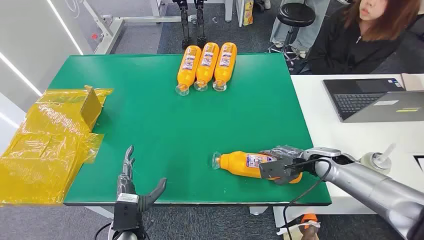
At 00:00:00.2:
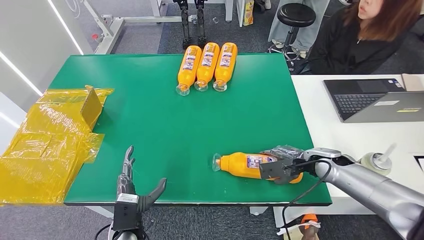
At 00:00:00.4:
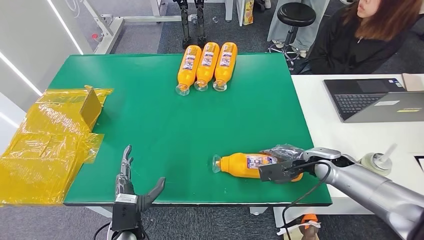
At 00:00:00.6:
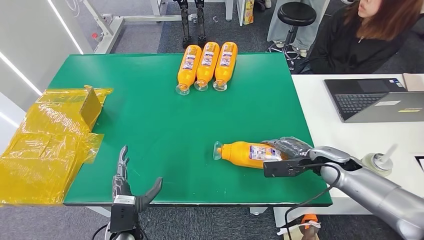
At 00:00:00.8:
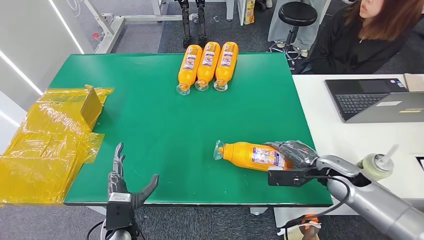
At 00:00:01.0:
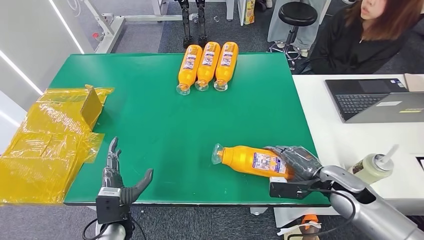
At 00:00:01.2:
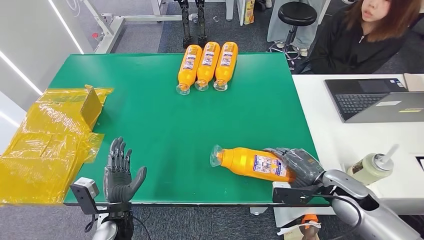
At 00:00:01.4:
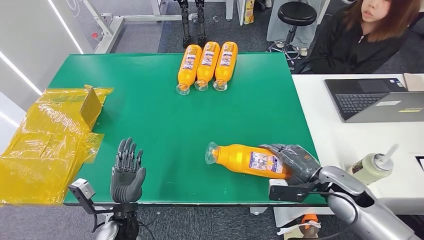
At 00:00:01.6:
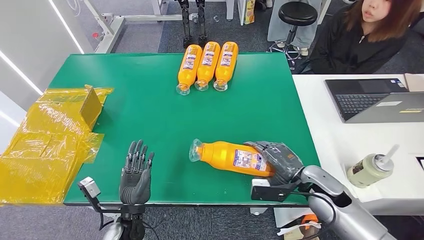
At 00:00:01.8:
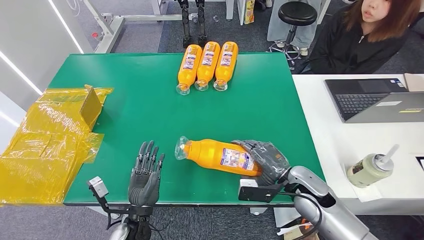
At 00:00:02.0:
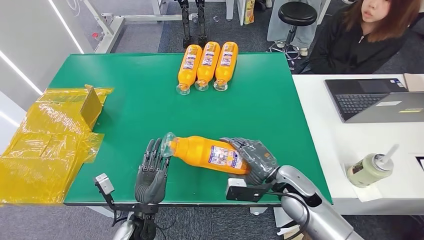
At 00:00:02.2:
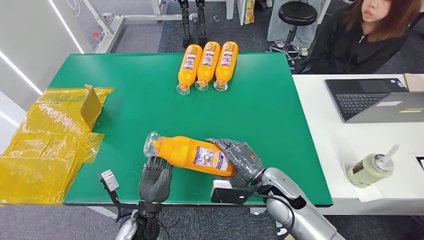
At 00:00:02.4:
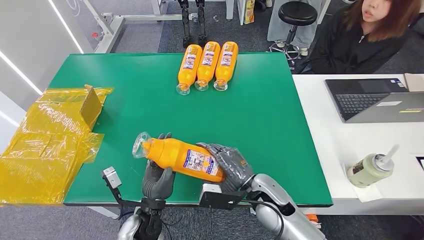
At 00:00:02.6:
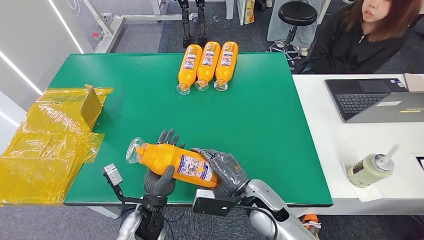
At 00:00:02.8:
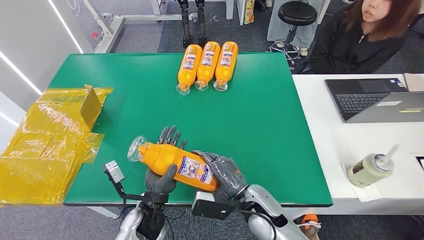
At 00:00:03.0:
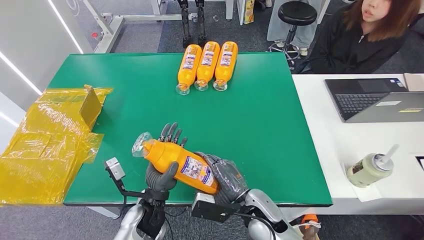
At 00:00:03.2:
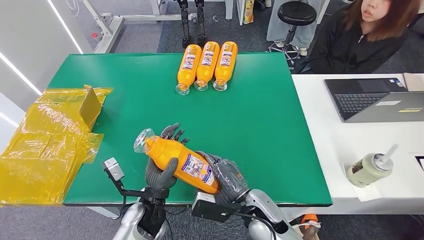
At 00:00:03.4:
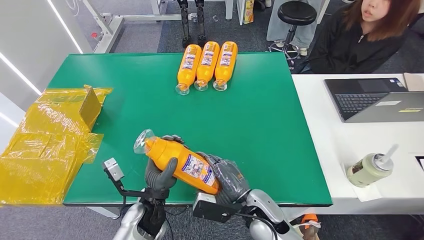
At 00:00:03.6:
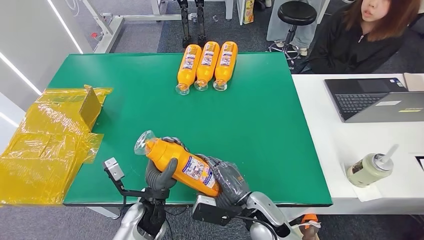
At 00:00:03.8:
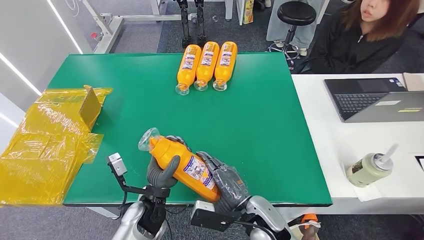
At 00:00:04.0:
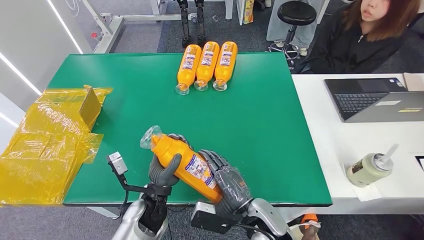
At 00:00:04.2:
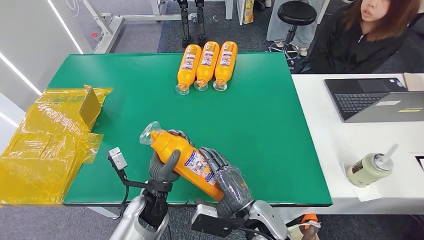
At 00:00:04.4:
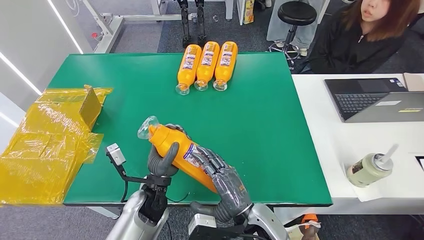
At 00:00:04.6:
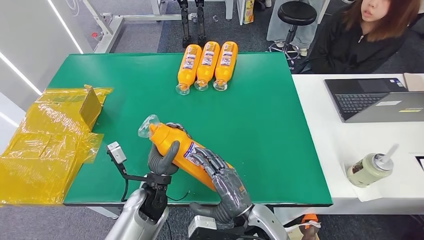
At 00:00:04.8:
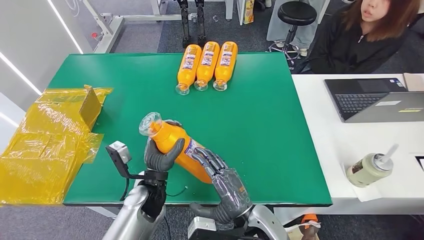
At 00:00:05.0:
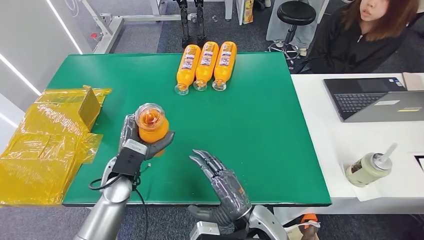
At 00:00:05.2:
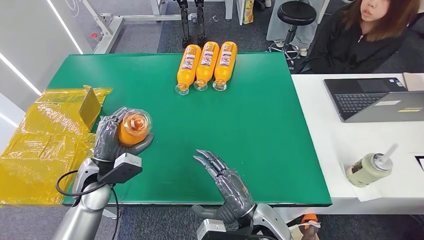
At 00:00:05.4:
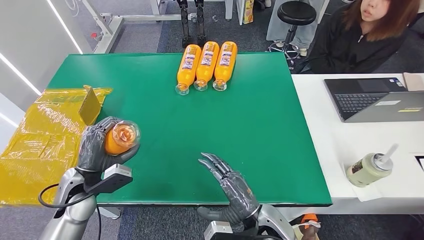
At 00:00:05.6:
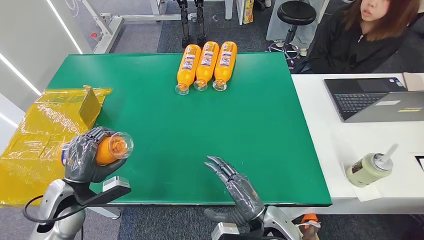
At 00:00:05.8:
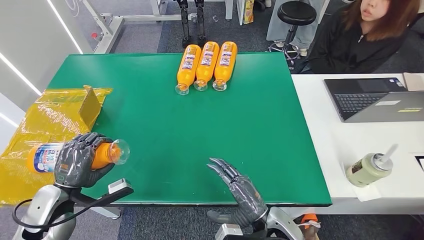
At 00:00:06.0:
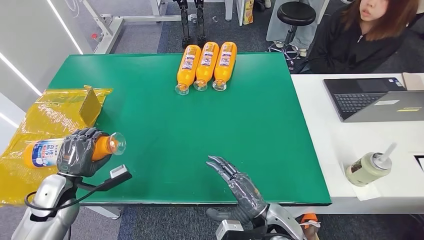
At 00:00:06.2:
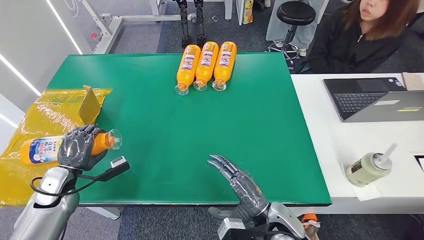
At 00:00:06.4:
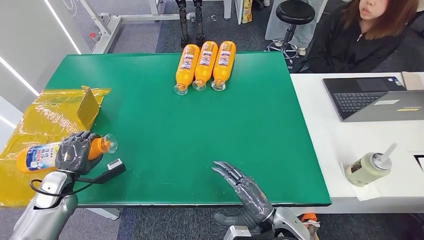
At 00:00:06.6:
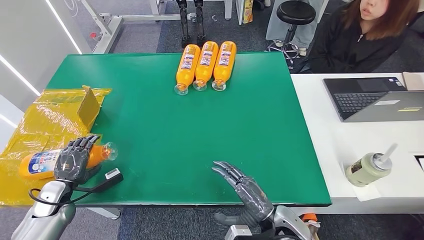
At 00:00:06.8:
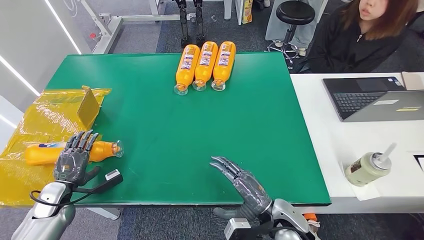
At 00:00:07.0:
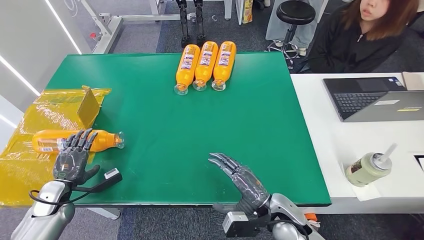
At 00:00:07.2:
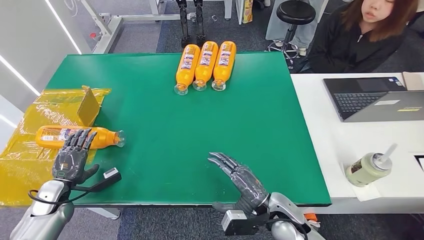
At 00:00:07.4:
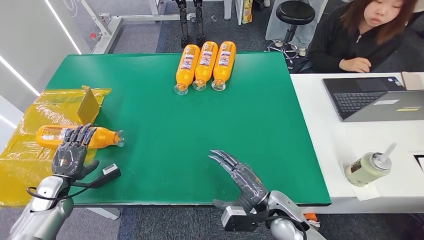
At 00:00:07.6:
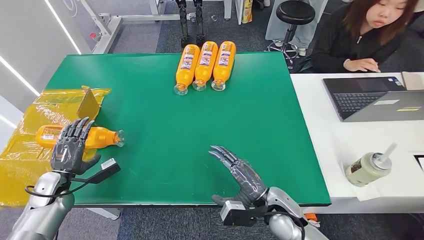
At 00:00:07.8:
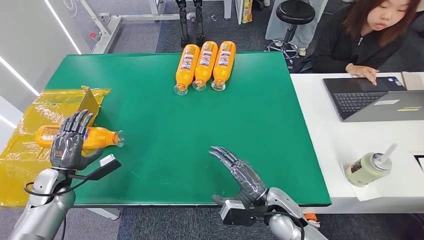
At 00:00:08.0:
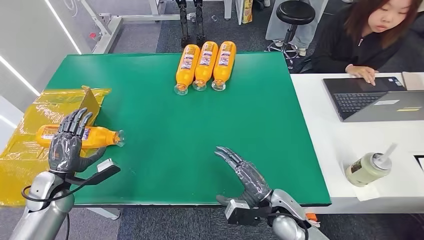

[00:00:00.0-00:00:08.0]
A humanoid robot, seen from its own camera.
Step, 00:00:00.0 to 00:00:02.4: Pick up the bottle from the table.
Step, 00:00:02.8 to 00:00:07.8: Turn the bottle to the front side.
00:00:01.6 to 00:00:03.2: The right hand shifts about 20 cm to the left. Meanwhile the left hand moves some 5 cm.
00:00:03.2 to 00:00:04.8: The right hand shifts by some 5 cm.
00:00:06.4 to 00:00:08.0: There are only small adjustments of the hands.

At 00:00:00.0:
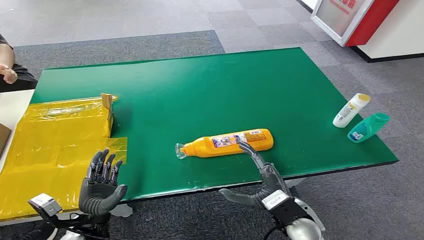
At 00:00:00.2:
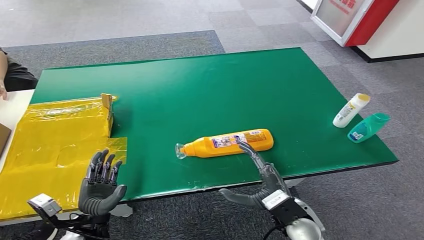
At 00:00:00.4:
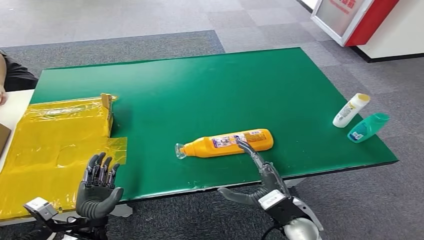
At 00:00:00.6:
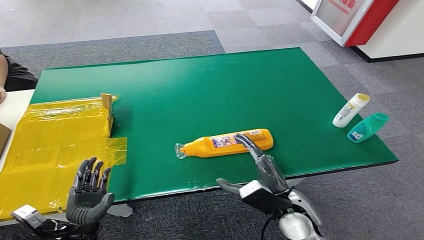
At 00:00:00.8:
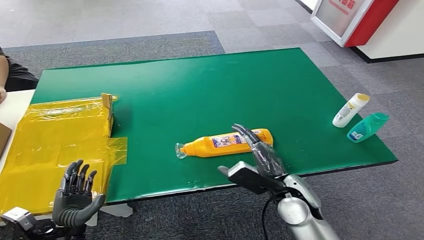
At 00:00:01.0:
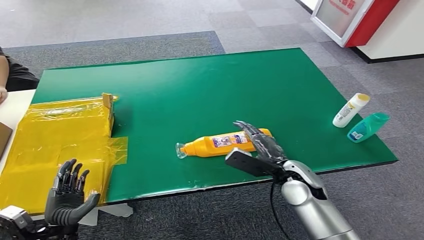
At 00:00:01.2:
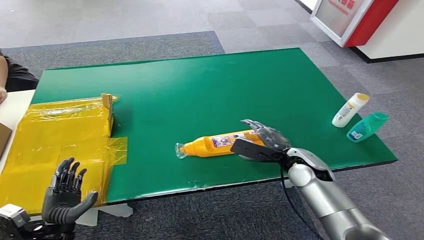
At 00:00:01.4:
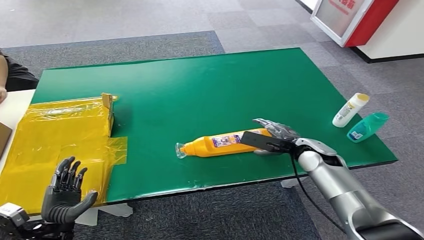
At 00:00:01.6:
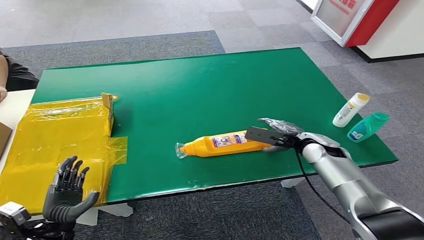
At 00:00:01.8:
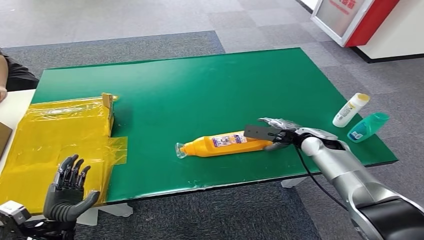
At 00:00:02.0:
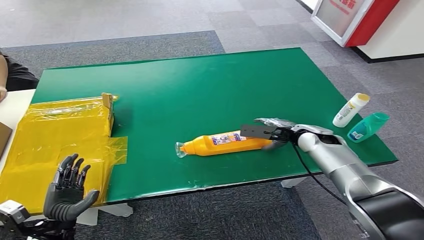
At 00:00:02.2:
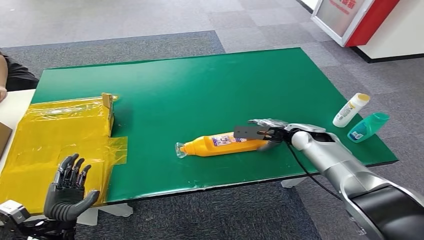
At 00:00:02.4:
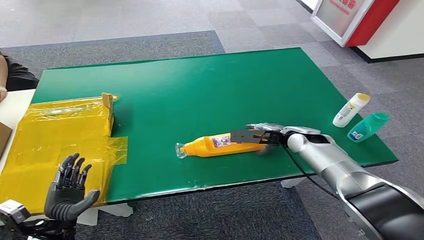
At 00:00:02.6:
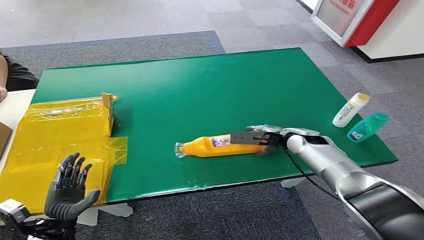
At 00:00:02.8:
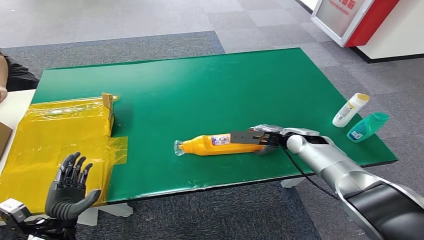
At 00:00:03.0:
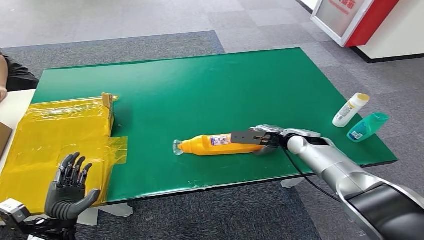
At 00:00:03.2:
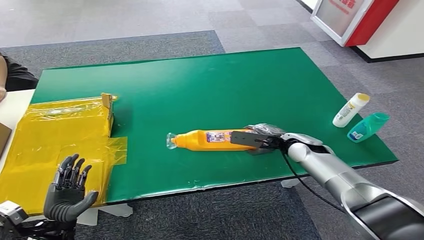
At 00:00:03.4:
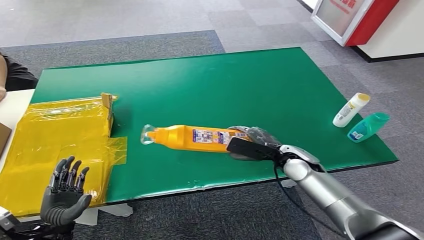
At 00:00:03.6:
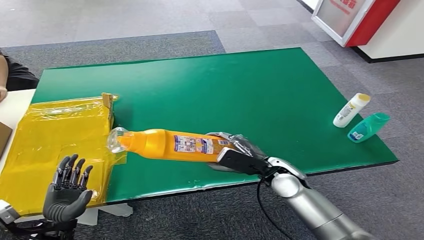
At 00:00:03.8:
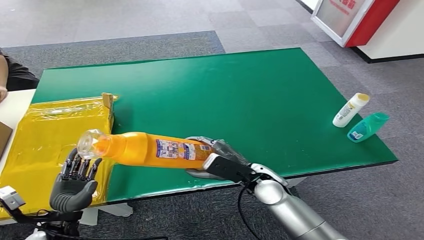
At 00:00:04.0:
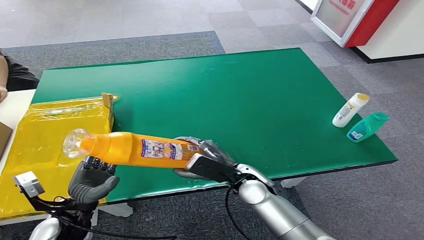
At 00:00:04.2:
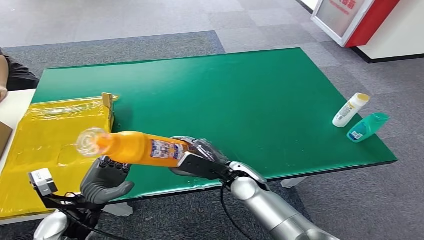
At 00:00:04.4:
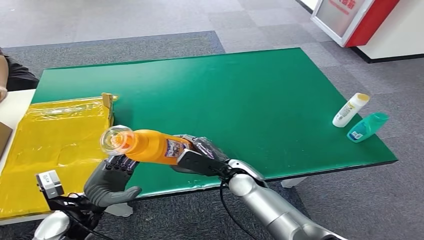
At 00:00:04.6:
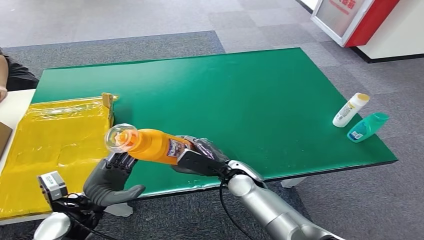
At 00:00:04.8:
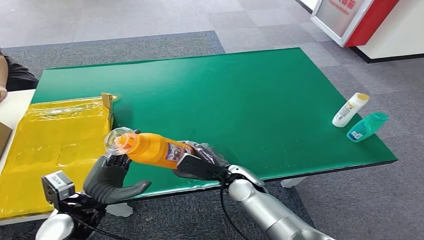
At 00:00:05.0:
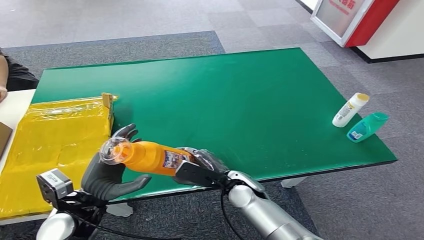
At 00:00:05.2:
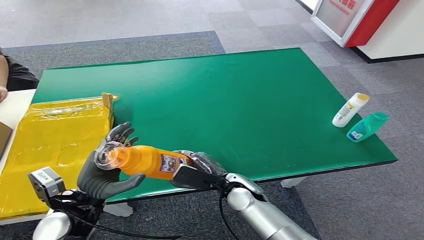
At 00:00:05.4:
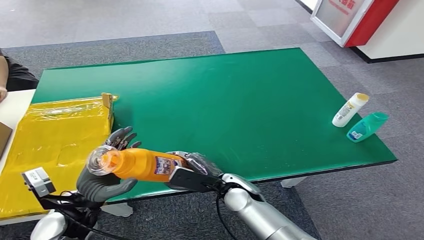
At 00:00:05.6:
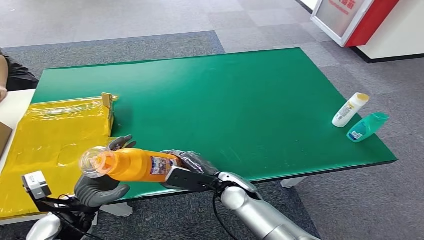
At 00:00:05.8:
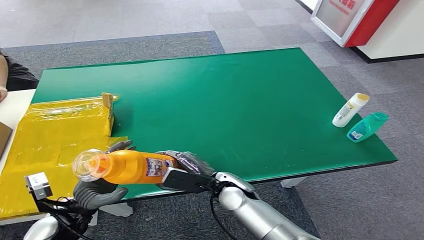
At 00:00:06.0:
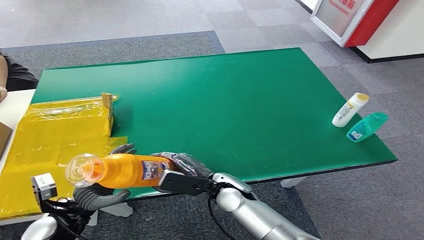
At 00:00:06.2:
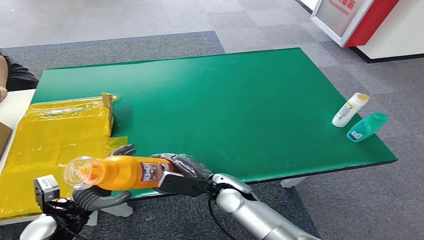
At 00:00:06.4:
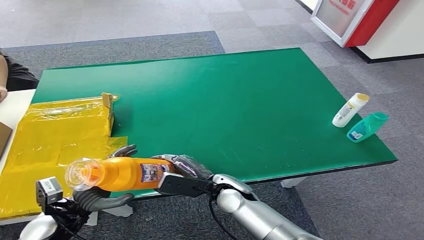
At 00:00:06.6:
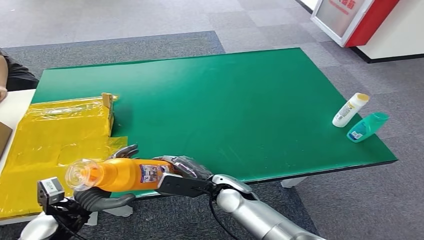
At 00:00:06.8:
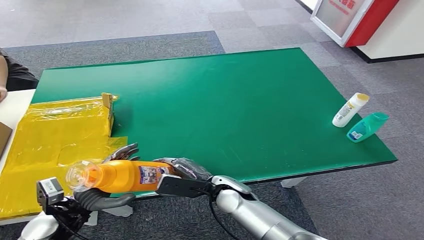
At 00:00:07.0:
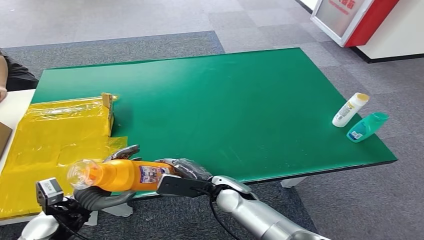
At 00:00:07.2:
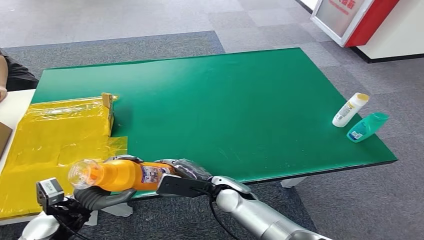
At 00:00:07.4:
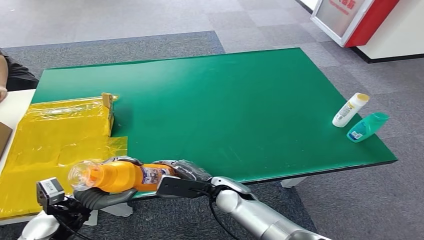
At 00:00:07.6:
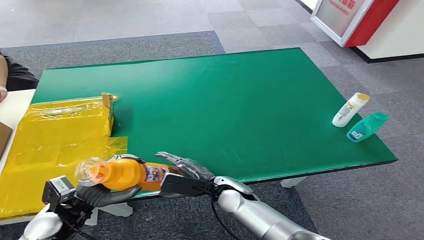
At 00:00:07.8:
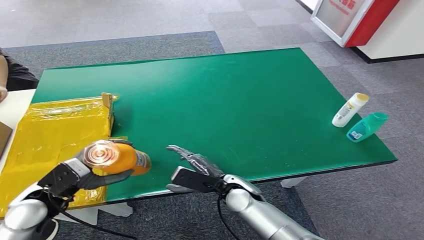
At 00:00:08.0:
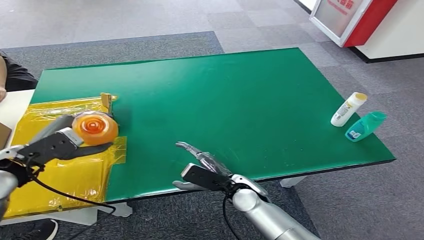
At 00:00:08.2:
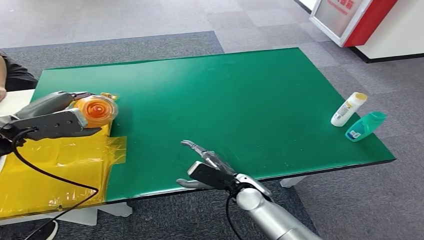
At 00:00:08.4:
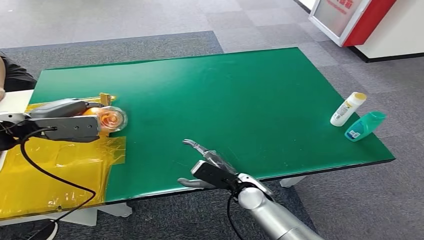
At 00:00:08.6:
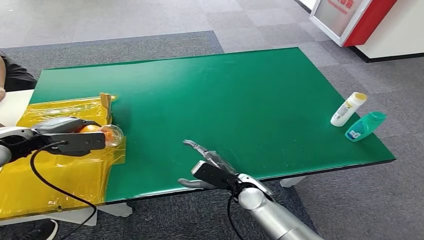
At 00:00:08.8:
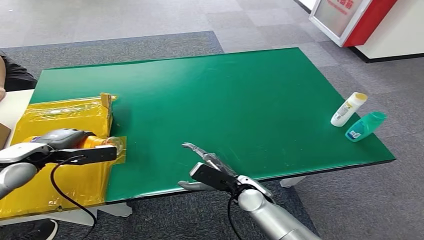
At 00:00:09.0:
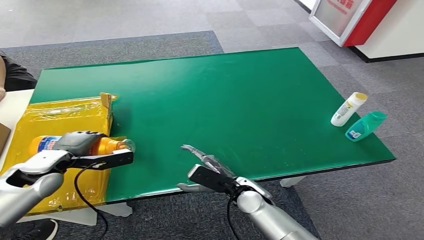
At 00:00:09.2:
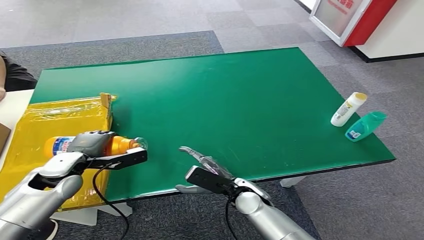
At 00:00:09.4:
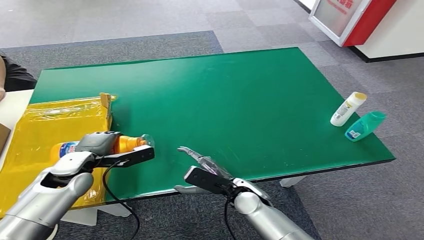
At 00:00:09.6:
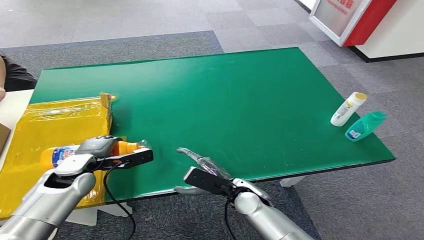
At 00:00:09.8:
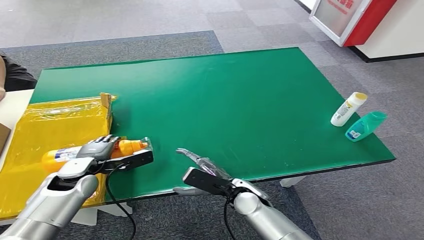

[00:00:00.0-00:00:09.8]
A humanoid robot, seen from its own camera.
Step, 00:00:00.0 to 00:00:03.6: Pick up the bottle from the table.
Step, 00:00:03.8 to 00:00:09.8: Turn the bottle to the front side.
00:00:01.4 to 00:00:02.8: The right hand heads forward, covering roughly 5 cm.
00:00:04.2 to 00:00:07.0: The hands stay close to where they were, moving slightly.
00:00:07.0 to 00:00:08.4: The left hand heads upward and forward, covering roughly 25 cm.
00:00:08.4 to 00:00:09.8: The left hand moves downward, about 20 cm.
